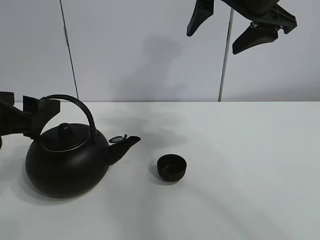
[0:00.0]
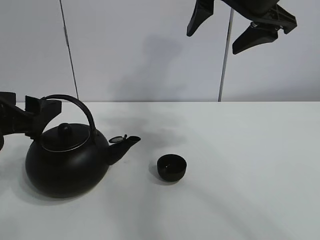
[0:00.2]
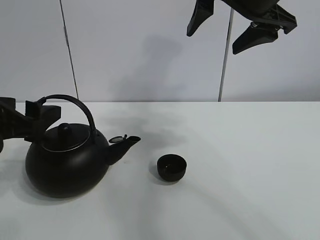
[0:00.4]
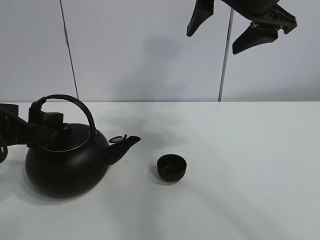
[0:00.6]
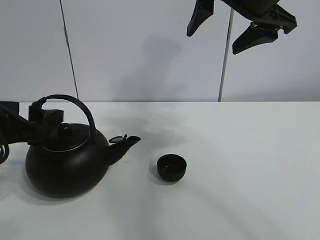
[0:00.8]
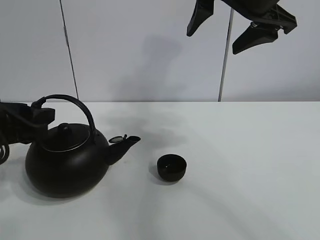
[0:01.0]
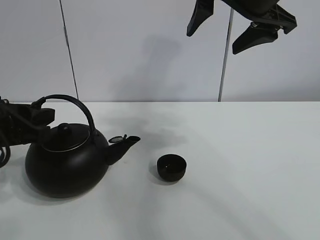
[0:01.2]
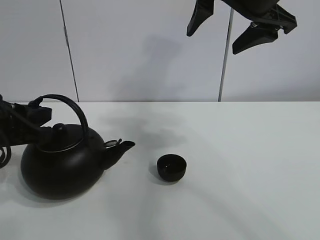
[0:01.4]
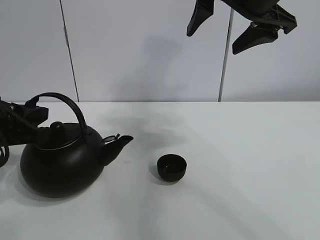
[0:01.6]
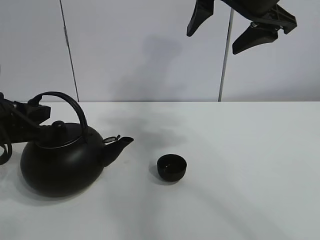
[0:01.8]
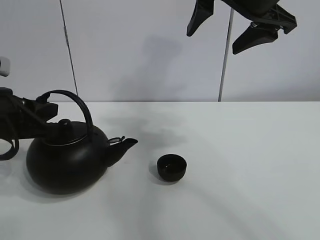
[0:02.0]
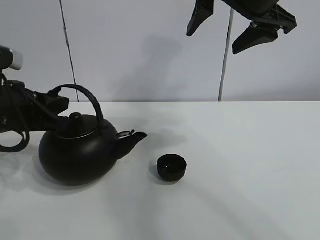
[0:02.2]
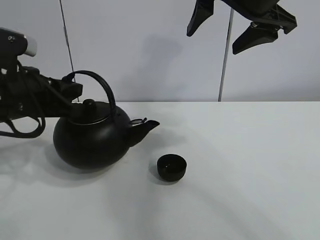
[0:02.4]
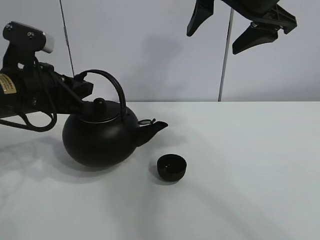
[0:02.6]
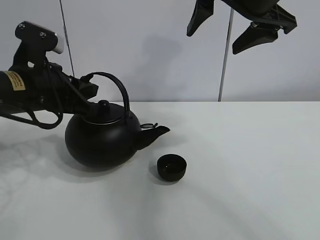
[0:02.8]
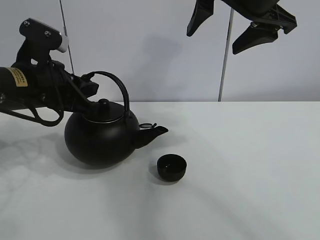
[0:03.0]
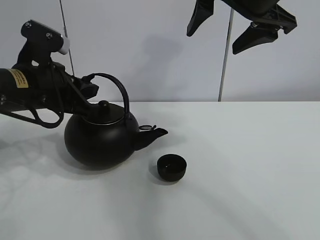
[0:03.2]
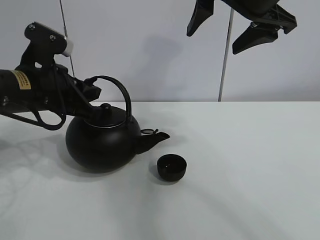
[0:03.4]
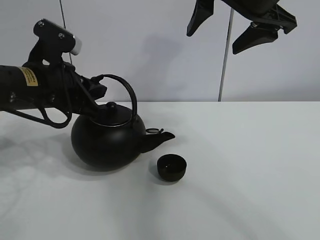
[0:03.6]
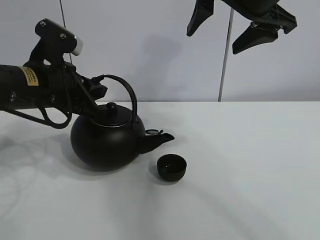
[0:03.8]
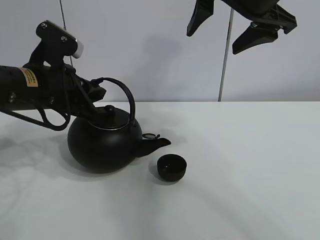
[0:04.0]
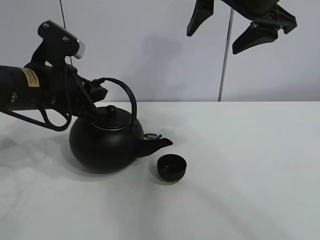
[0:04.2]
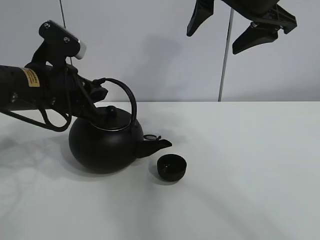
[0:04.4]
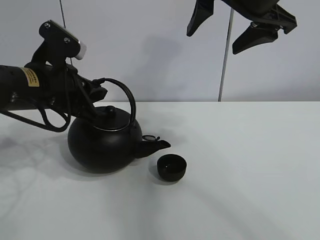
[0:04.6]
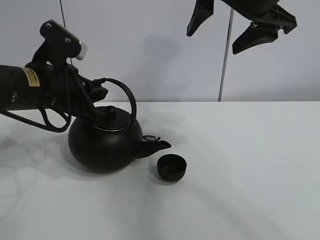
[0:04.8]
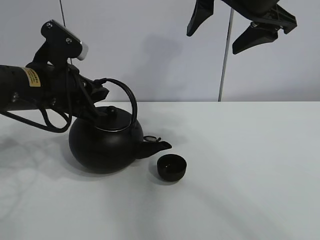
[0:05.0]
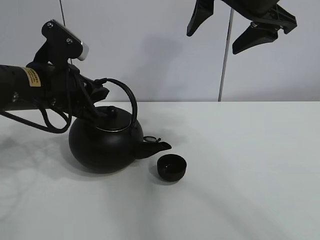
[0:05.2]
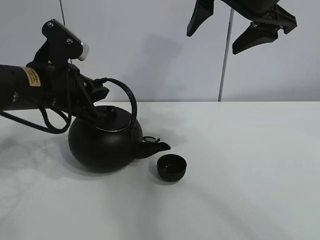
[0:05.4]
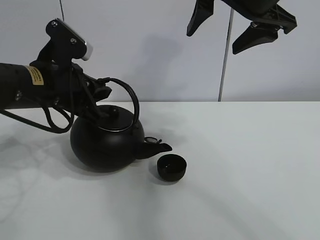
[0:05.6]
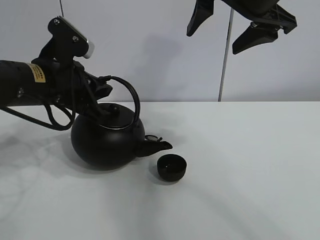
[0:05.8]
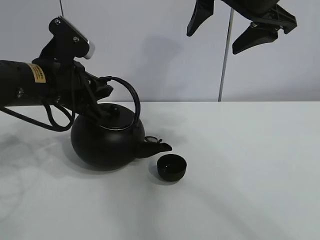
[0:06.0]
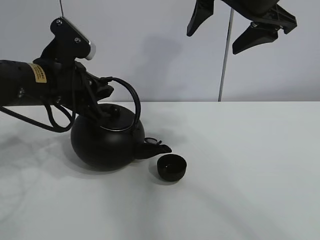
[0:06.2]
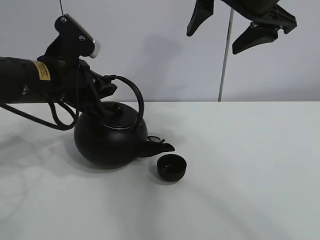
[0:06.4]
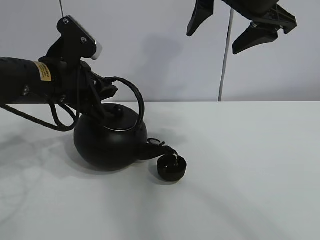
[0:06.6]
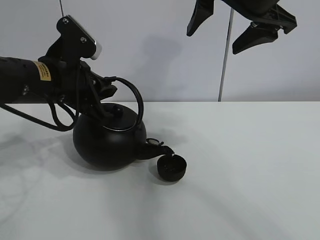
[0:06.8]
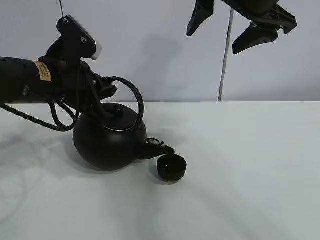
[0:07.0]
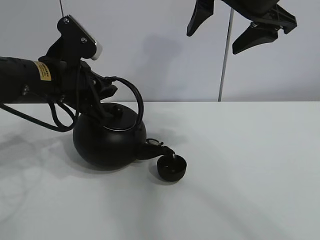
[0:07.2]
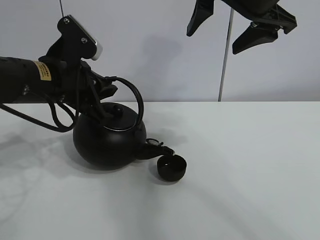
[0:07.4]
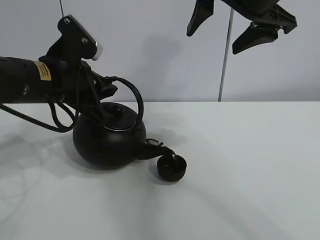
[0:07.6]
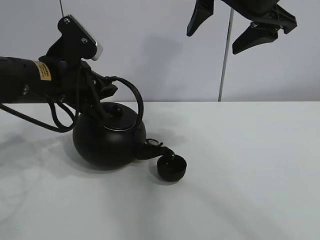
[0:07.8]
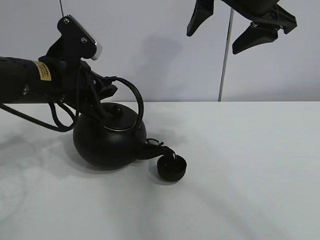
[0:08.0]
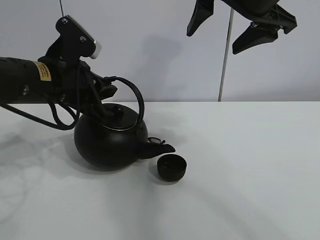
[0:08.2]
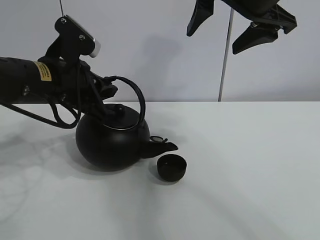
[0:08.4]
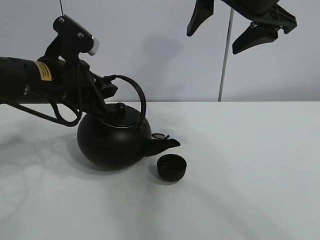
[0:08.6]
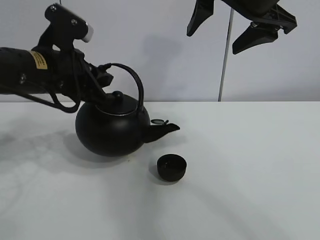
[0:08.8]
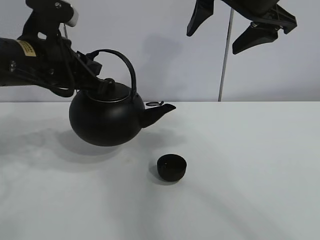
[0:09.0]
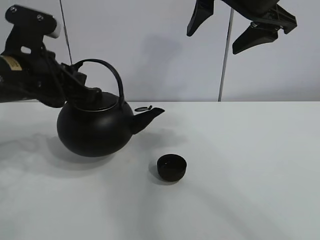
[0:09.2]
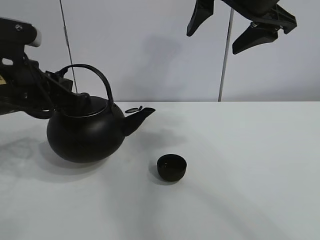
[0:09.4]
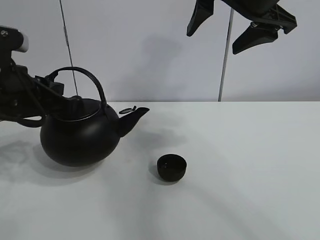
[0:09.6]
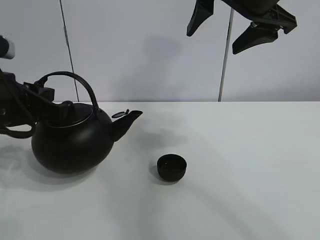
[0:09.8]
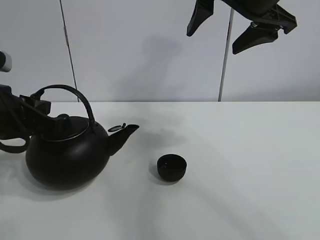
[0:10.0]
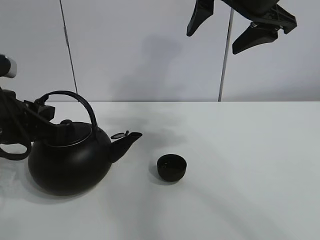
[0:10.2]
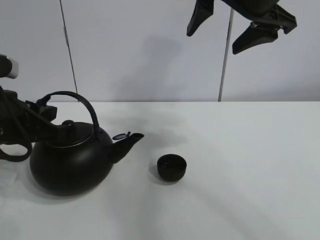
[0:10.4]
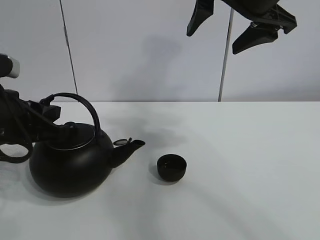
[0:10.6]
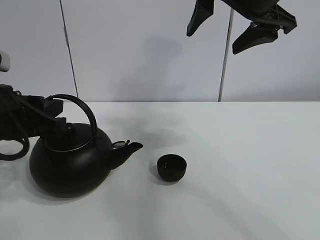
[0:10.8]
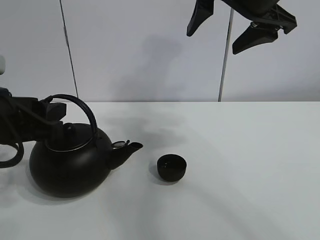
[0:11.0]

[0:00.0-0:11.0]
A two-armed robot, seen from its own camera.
Task of the whole recording: pour tea into the teacup.
Step, 0:01.8 to 0:08.0: Pour tea into the teacup with the left gripper.
0:00.0 to 0:01.6: The left gripper closes its fingers.
0:01.6 to 0:03.2: The left gripper goes about 10 cm forward and to the right.
0:03.2 to 0:06.2: The grippers stay close to where they were, moving slightly.
0:06.2 to 0:07.8: Both grippers stay put.
0:07.8 to 0:09.4: The left gripper moves roughly 5 cm.
0:09.4 to 0:11.0: The left gripper shifts about 5 cm backward, and opens.

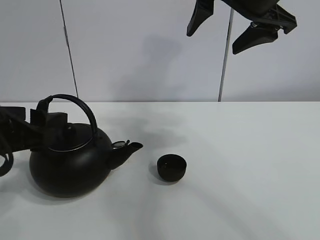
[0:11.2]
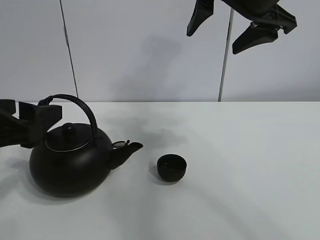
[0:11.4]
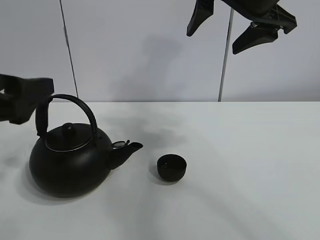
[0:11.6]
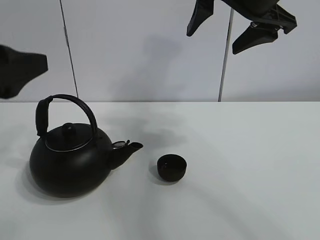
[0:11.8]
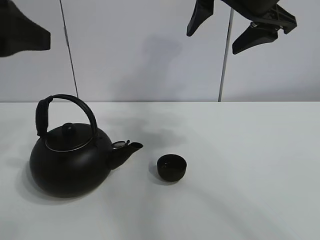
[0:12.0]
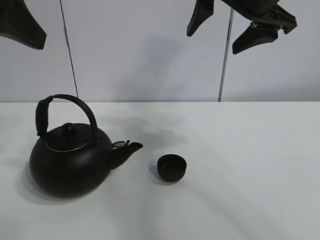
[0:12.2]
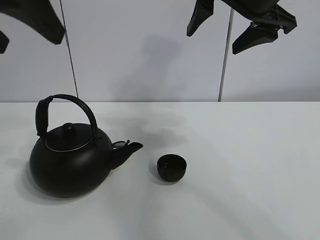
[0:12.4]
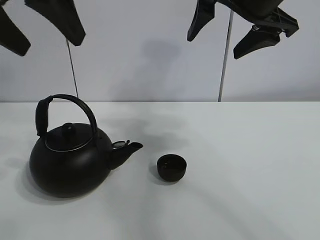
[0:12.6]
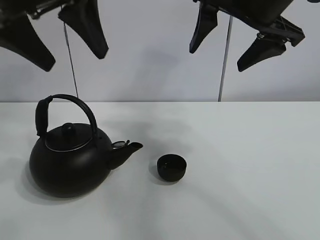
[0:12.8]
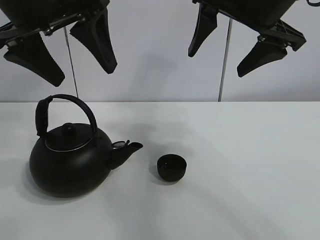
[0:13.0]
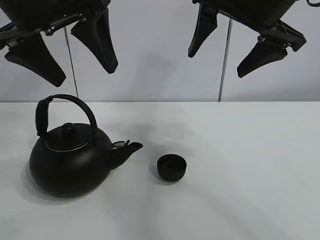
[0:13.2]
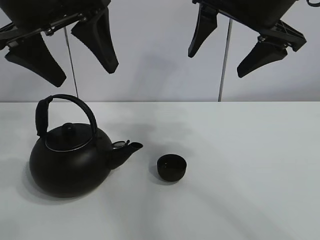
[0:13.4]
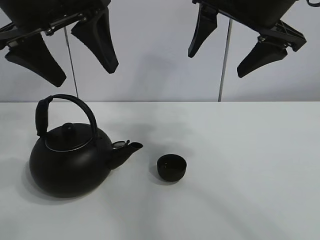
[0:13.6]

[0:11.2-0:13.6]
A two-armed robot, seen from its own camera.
Task of the whole recording: pour tea into the teacup.
0:11.2 to 0:12.4: The left gripper moves upward, approximately 20 cm.
0:12.4 to 0:13.6: The left gripper heads forward and to the right, covering approximately 10 cm.

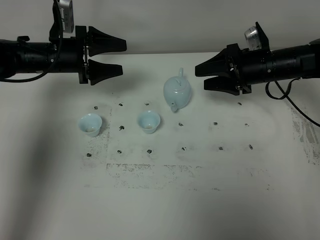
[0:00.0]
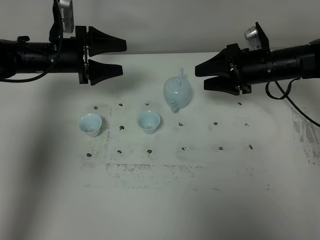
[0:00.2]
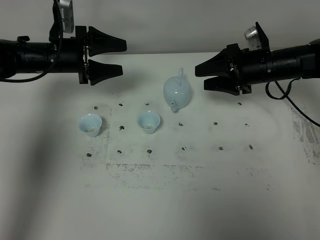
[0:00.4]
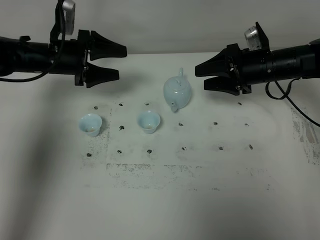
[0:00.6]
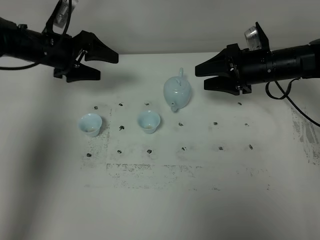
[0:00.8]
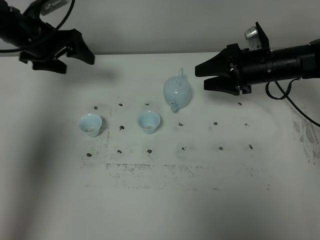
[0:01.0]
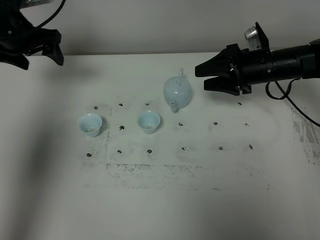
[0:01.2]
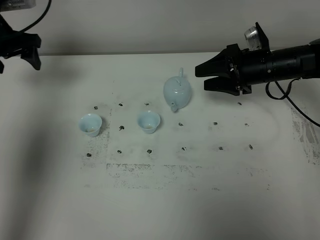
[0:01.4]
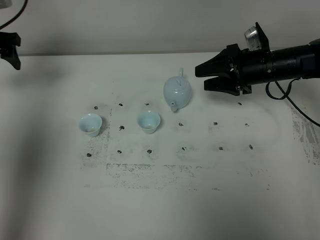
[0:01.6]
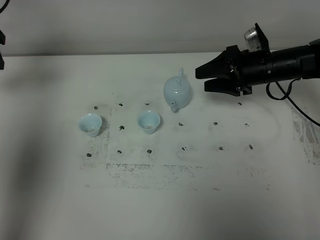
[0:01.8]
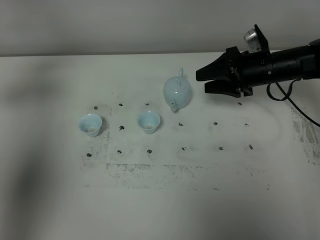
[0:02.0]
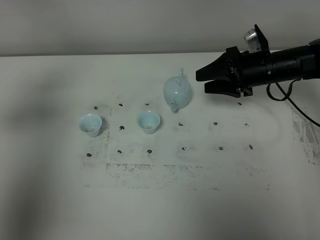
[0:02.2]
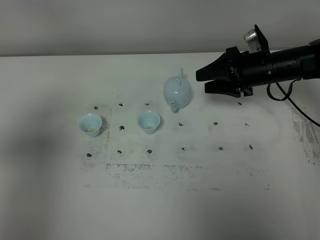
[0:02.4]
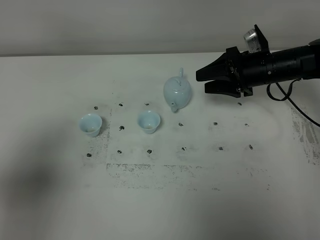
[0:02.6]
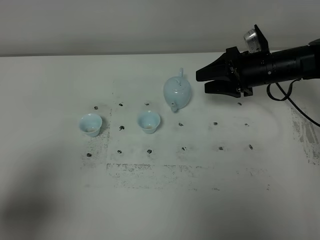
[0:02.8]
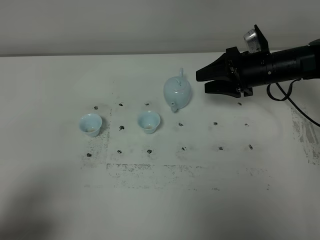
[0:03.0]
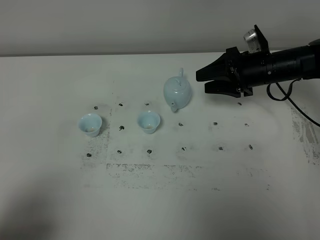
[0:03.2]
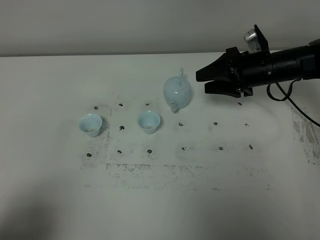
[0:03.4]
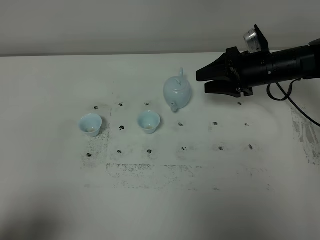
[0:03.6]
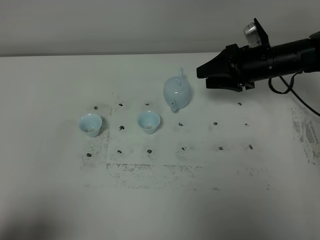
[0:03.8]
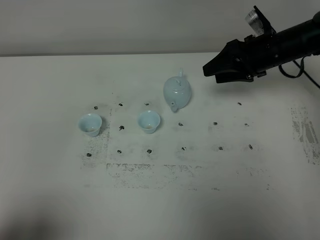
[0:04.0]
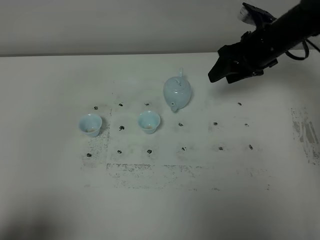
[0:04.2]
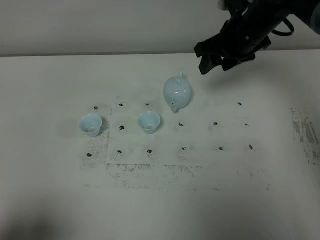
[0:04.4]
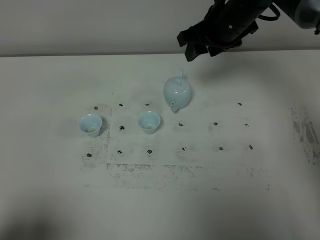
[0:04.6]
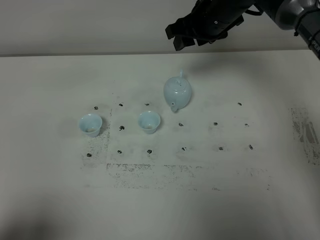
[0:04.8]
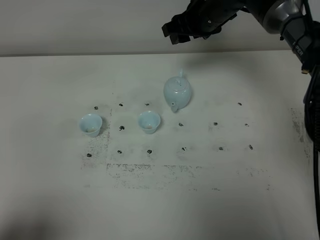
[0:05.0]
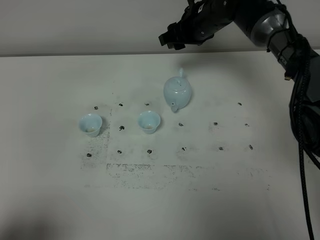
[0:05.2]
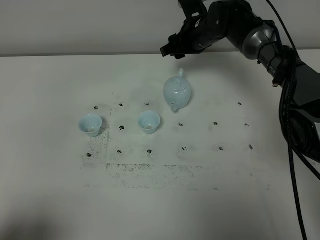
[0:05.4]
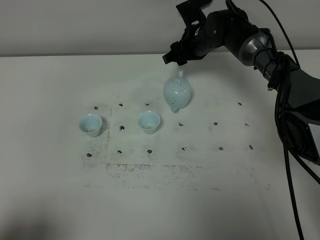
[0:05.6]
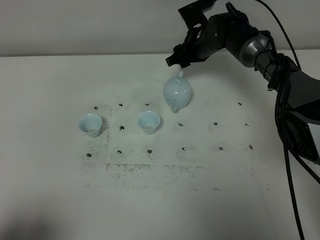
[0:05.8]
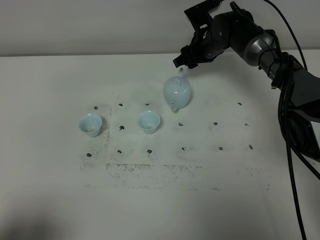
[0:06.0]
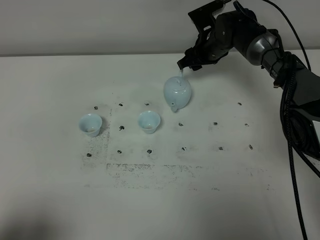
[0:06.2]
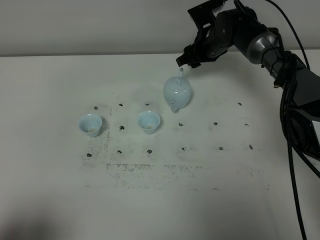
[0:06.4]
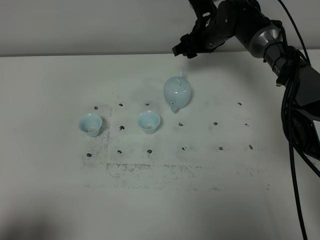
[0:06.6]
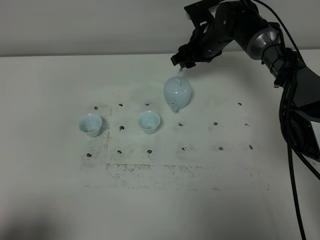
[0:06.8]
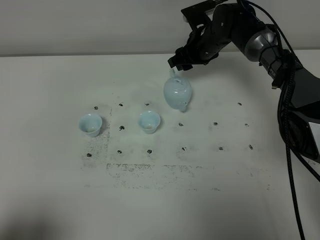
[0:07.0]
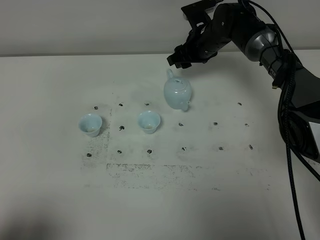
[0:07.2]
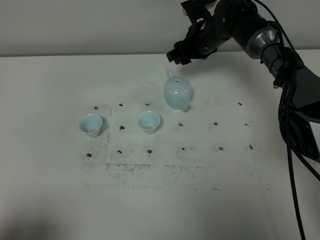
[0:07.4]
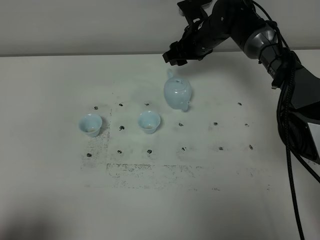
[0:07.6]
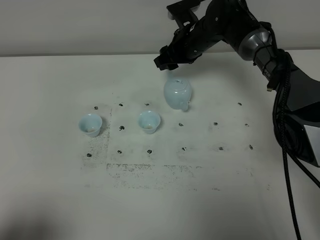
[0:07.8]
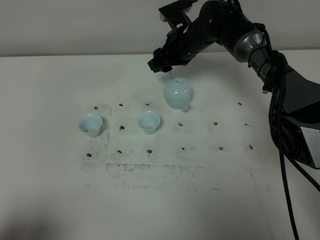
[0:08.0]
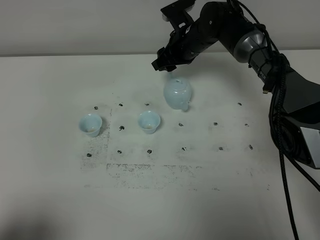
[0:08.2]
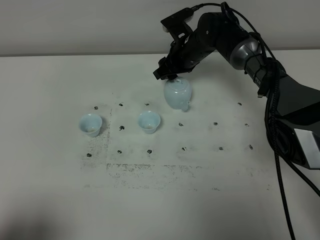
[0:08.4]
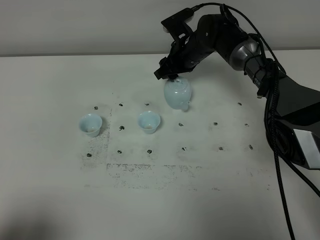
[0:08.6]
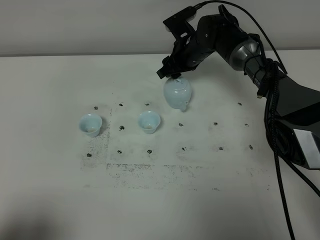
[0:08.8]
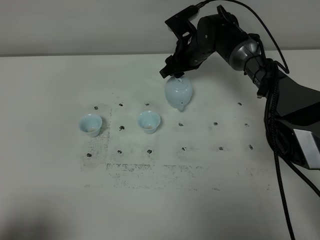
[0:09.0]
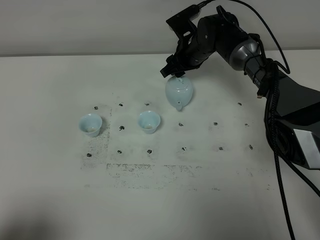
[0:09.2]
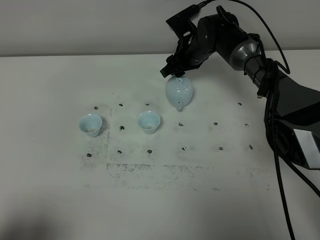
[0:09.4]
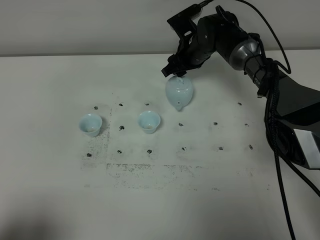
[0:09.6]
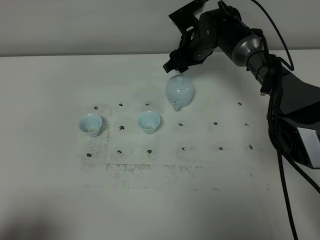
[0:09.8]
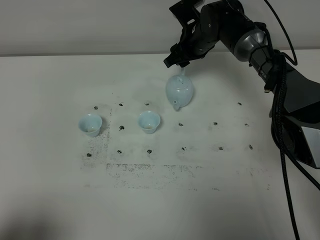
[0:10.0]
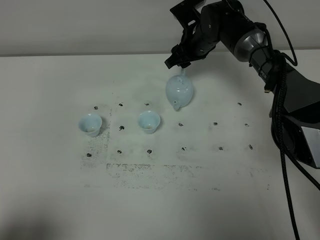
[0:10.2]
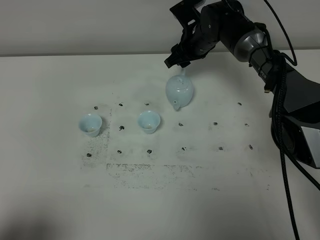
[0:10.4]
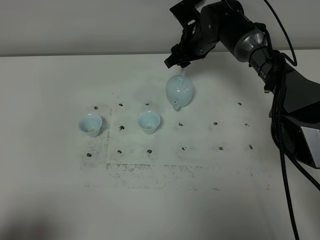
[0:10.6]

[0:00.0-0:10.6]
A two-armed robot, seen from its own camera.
Task of the whole recording: grasp the blue porcelain teapot and pour the tea into the two blue porcelain teacups one by one, put the blue porcelain teapot back in its original place.
0:00.0 to 0:01.6: The left gripper goes approximately 15 cm to the left and upward.
0:01.6 to 0:03.0: The left gripper travels backward by approximately 40 cm.
0:03.0 to 0:04.6: The right gripper travels upward and to the left by about 15 cm.
0:04.6 to 0:06.0: The right gripper goes approximately 15 cm downward and forward.
0:06.0 to 0:07.6: The grippers stay close to where they were, moving slightly.
0:07.6 to 0:10.6: The grippers make only small movements.
